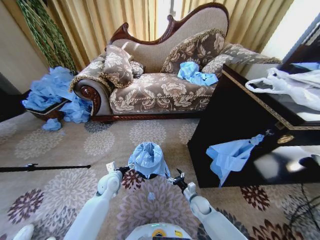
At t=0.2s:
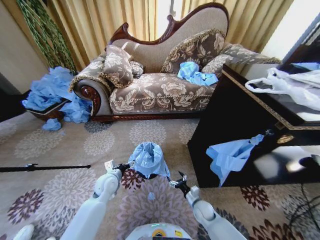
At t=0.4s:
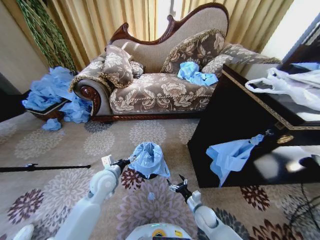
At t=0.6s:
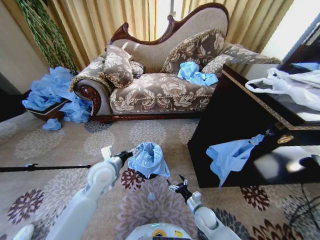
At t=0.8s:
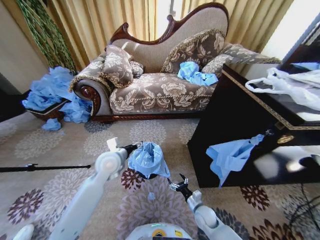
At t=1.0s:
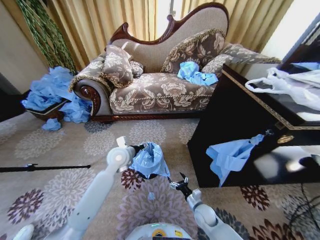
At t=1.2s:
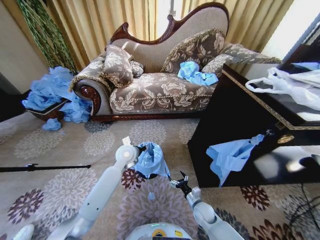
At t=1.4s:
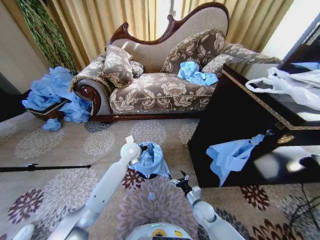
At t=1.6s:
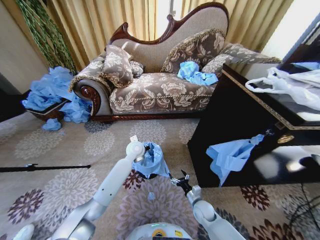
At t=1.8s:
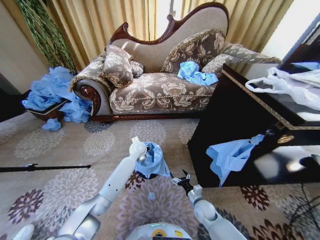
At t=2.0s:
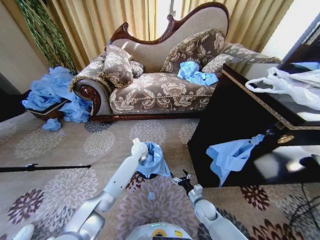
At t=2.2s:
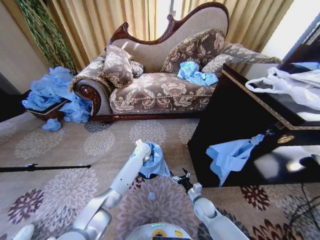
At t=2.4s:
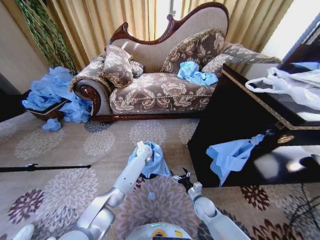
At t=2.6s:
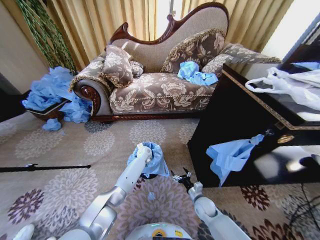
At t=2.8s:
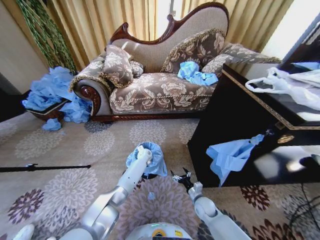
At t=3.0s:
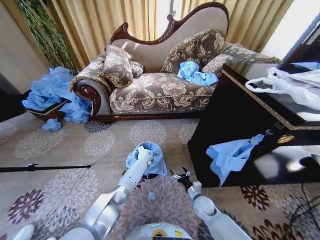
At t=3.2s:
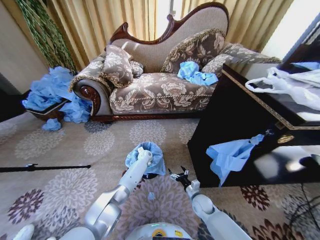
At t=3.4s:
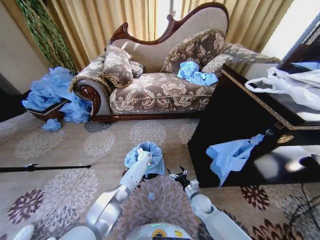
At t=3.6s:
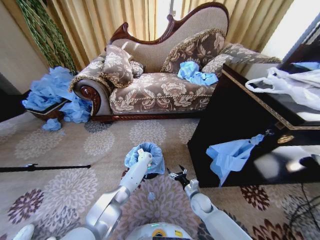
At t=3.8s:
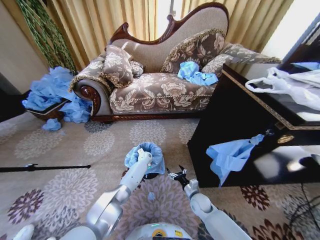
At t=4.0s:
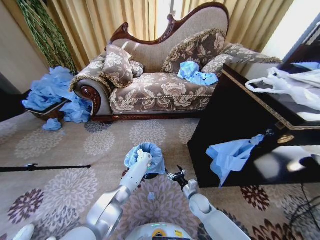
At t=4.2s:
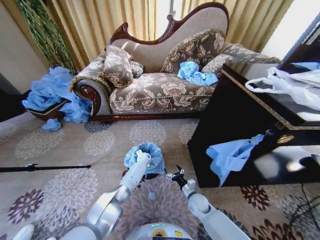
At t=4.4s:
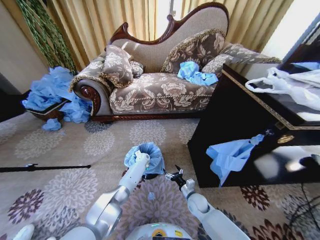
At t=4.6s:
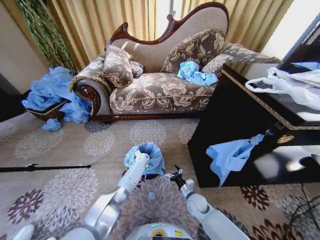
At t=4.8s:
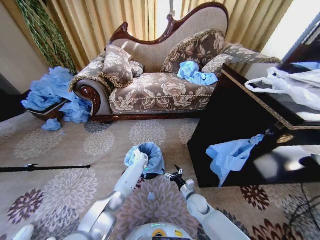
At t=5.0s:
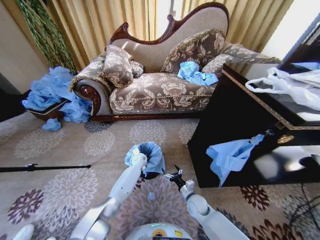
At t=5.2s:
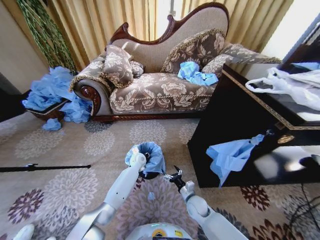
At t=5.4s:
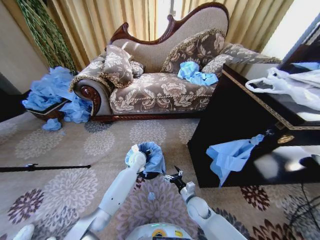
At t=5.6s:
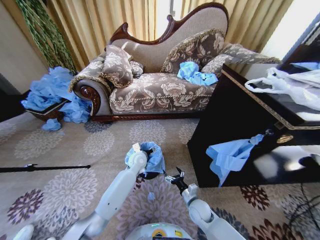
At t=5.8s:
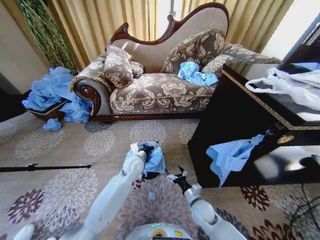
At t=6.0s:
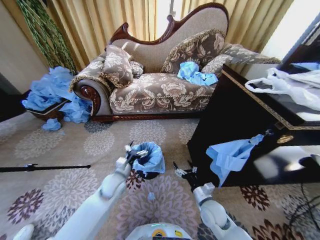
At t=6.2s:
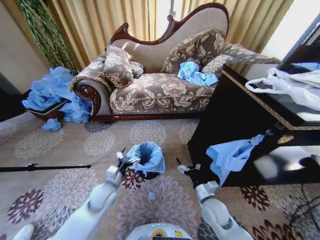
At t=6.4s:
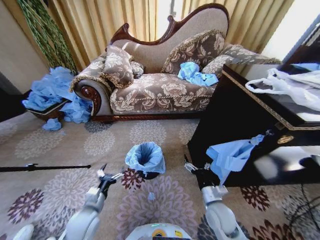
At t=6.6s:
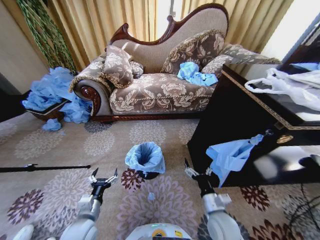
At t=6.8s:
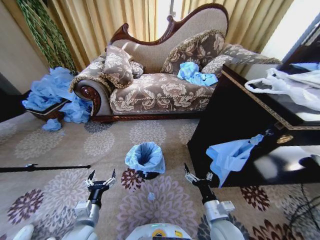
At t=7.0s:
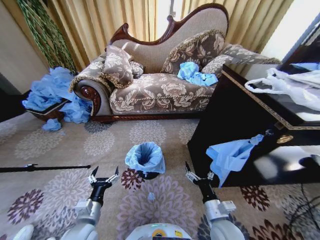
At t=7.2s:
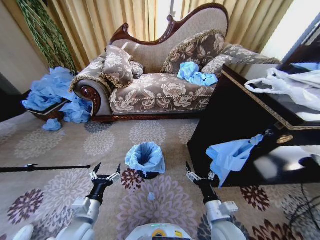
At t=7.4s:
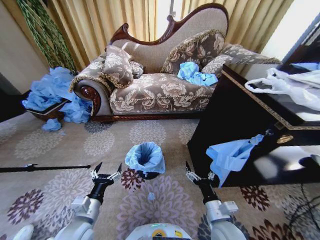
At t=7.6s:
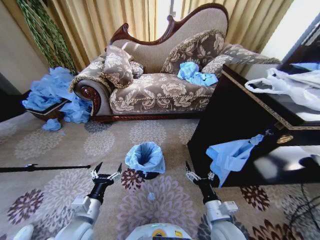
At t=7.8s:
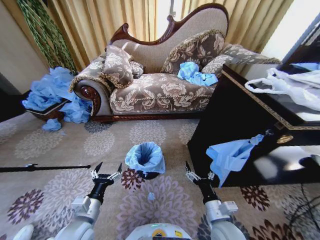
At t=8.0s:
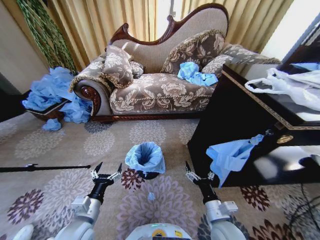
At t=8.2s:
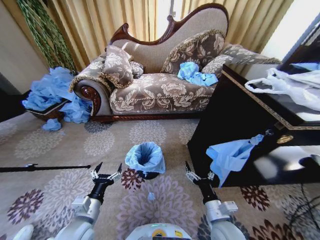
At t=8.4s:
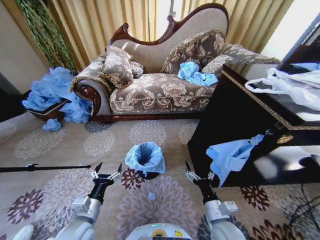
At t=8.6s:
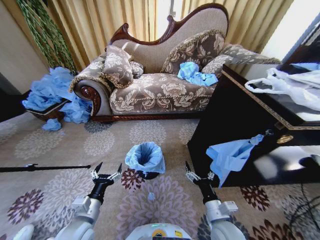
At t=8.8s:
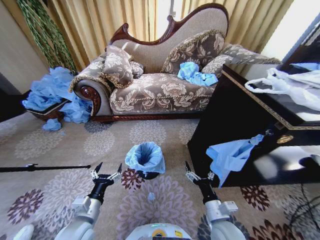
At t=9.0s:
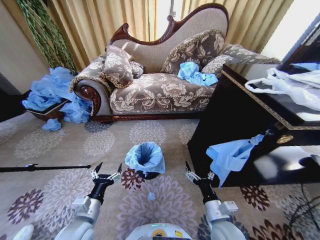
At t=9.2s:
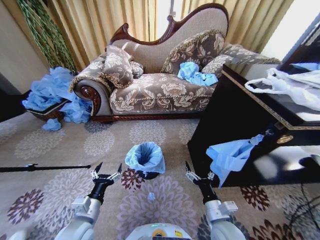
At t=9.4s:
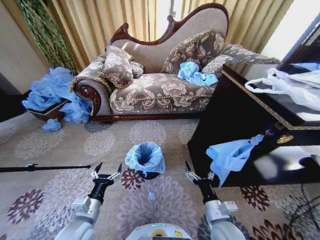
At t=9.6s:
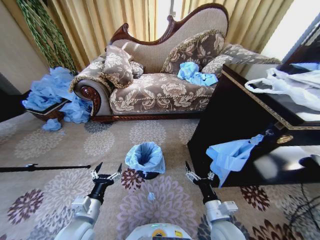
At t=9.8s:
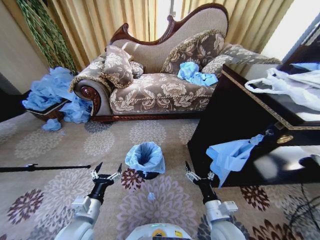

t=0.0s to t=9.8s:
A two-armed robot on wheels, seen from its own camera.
Task of the whole recording: Place a garbage bag over the trash bin.
t=0.0s to t=1.4s: The left gripper shifts roughly 20 cm upward, to the right and forward, and closes its fingers.
t=1.4s to t=2.8s: The left gripper heads downward and forward, covering about 20 cm.
t=2.8s to t=4.2s: The grippers move only a little.
t=4.2s to t=5.6s: The left gripper goes approximately 20 cm upward and backward, and opens up.
t=5.6s to t=7.0s: The right gripper heads upward and backward, covering about 15 cm. Meanwhile the left gripper moves backward and to the left, roughly 30 cm.
t=7.0s to t=8.4s: The grippers move only a little.
t=8.4s to t=9.8s: Both grippers stay put.

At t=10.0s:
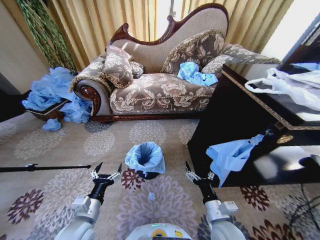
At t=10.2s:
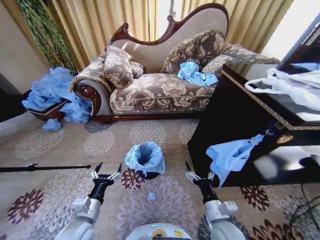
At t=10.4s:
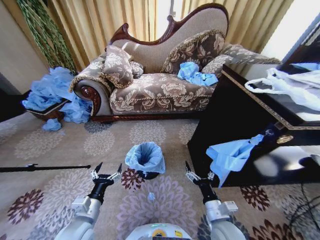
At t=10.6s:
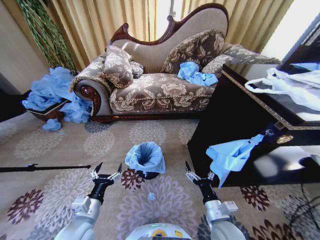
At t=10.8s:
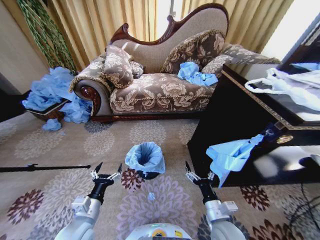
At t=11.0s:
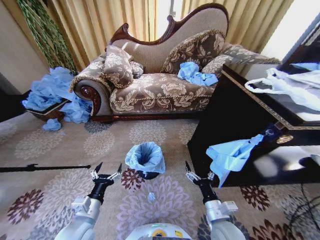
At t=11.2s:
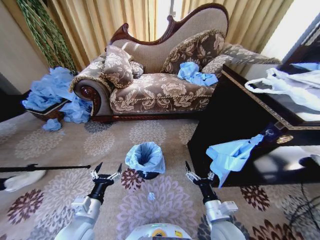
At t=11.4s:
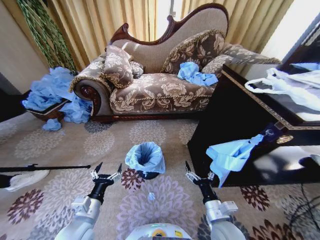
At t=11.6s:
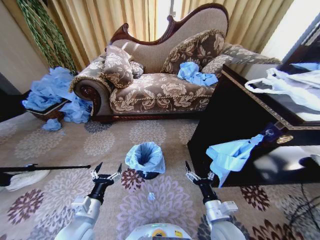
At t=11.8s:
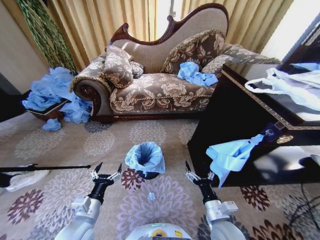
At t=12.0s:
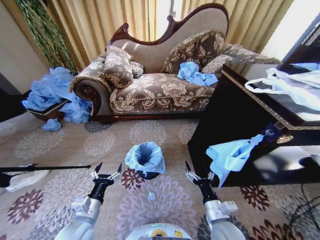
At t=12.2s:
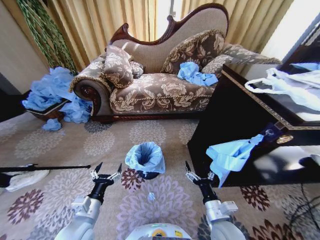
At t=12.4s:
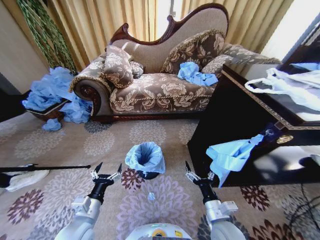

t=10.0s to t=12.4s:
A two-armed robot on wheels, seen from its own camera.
Task of the whole recording: Place a garbage bag over the trash bin.
t=10.0s to t=12.4s: Both grippers stay about where they are.
